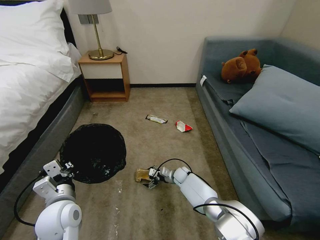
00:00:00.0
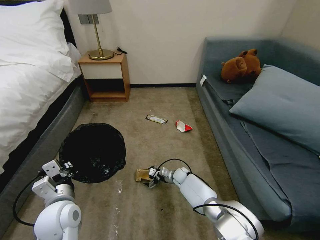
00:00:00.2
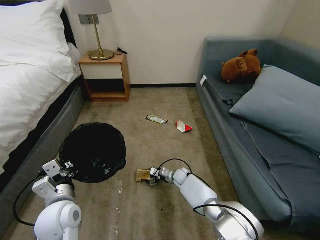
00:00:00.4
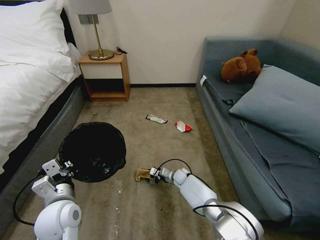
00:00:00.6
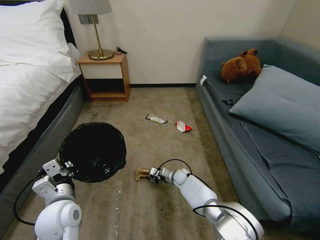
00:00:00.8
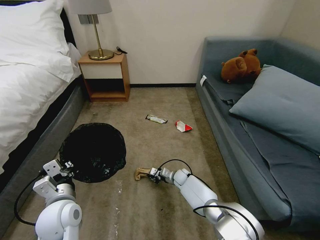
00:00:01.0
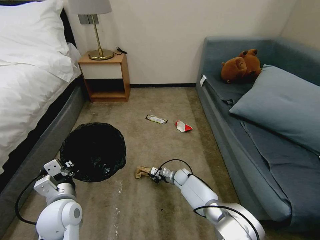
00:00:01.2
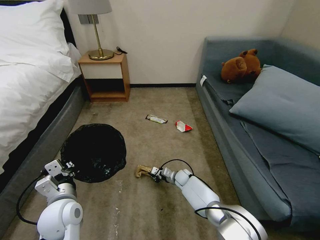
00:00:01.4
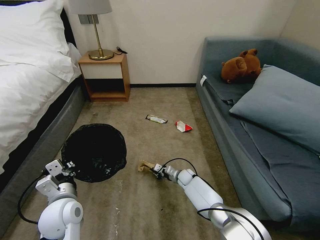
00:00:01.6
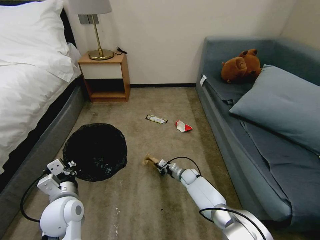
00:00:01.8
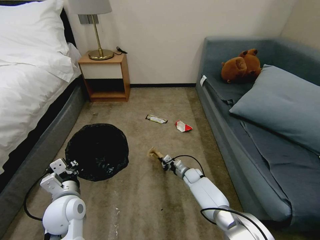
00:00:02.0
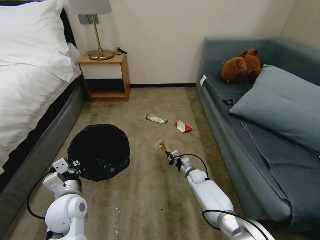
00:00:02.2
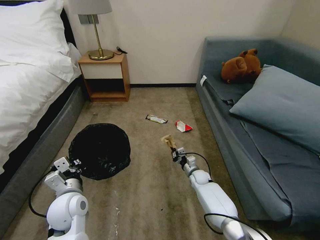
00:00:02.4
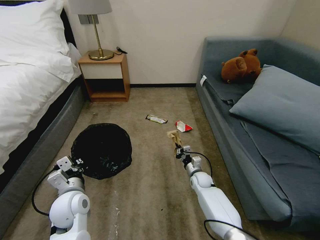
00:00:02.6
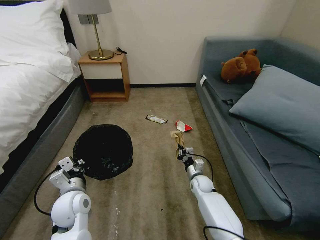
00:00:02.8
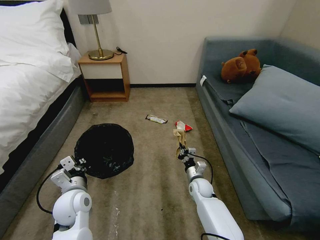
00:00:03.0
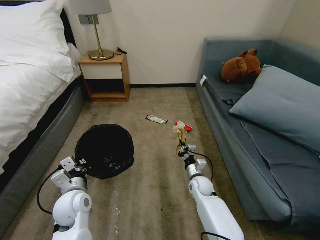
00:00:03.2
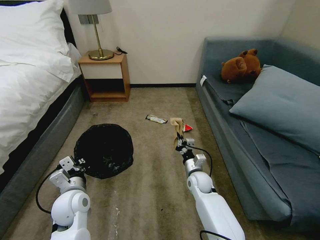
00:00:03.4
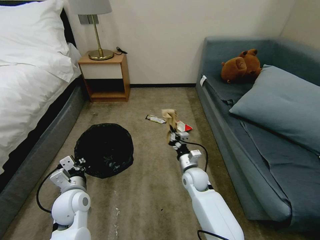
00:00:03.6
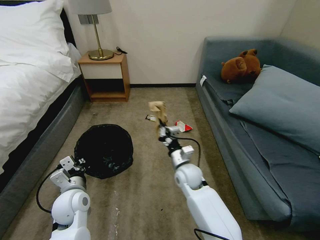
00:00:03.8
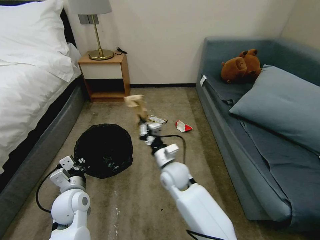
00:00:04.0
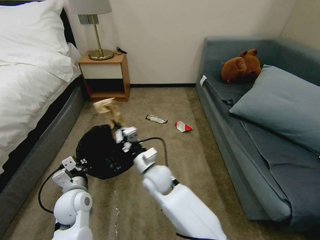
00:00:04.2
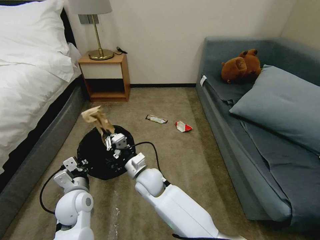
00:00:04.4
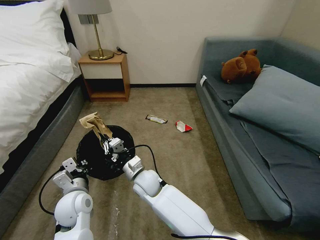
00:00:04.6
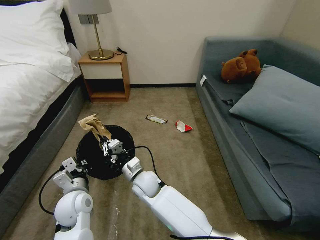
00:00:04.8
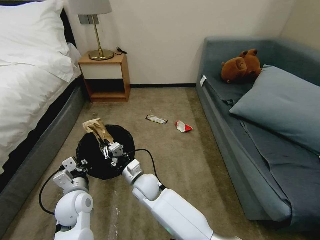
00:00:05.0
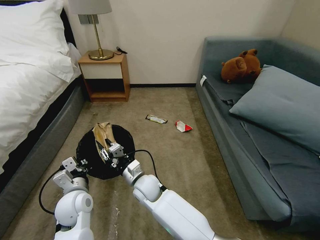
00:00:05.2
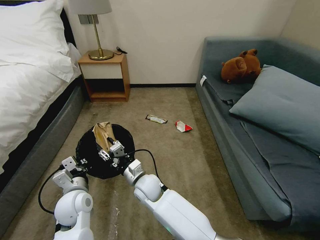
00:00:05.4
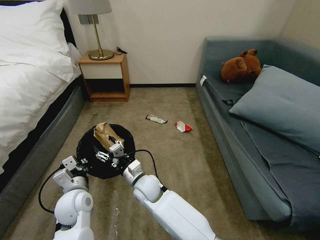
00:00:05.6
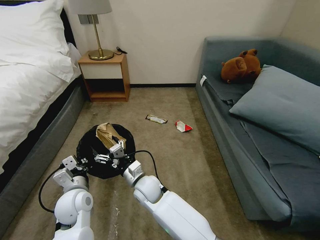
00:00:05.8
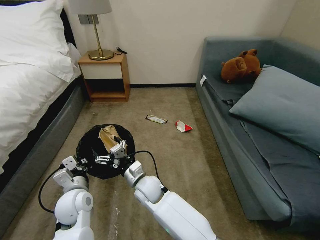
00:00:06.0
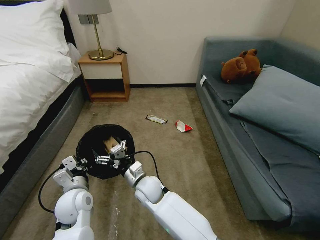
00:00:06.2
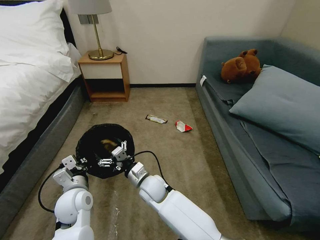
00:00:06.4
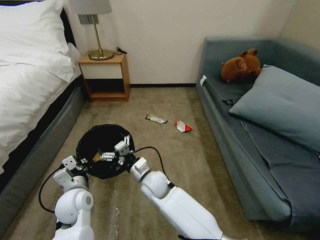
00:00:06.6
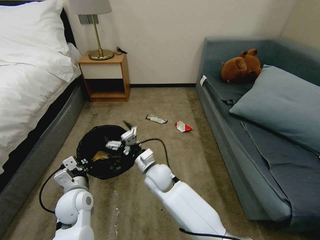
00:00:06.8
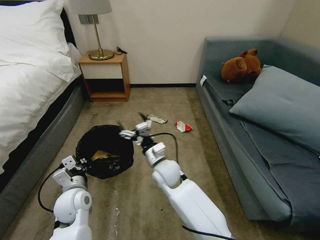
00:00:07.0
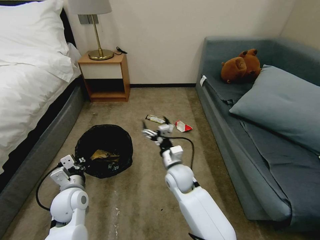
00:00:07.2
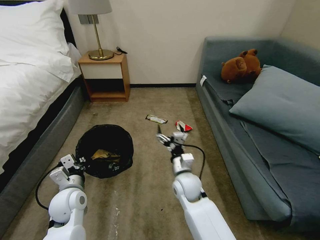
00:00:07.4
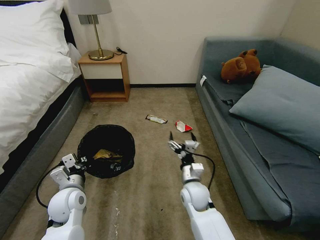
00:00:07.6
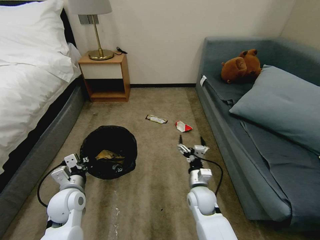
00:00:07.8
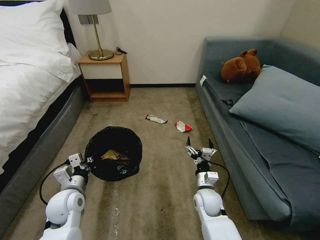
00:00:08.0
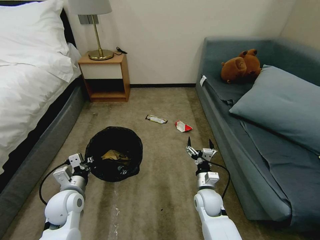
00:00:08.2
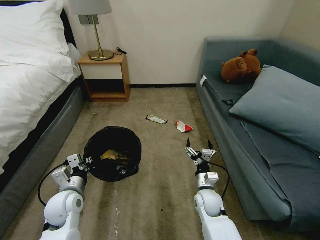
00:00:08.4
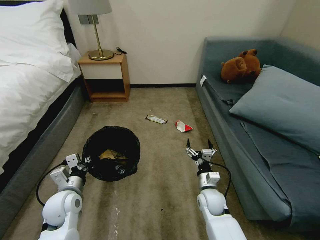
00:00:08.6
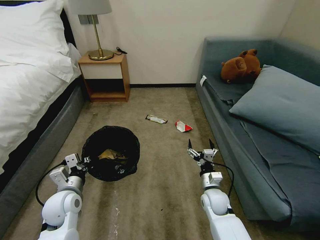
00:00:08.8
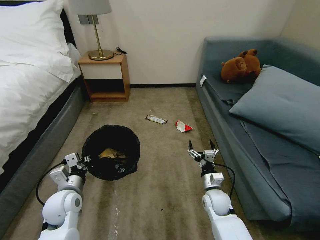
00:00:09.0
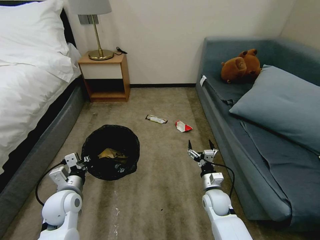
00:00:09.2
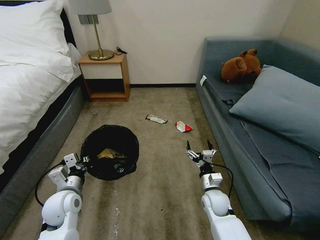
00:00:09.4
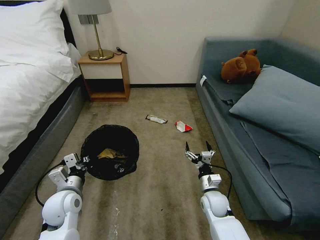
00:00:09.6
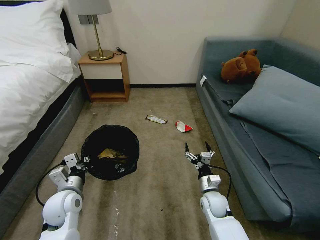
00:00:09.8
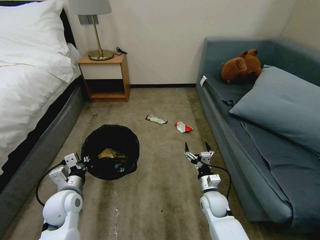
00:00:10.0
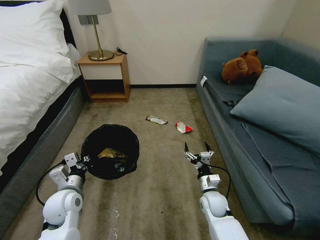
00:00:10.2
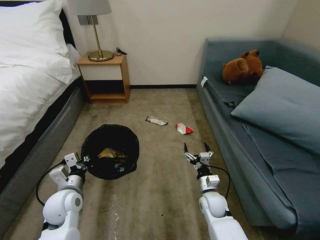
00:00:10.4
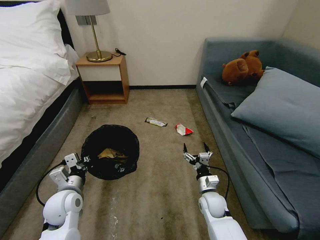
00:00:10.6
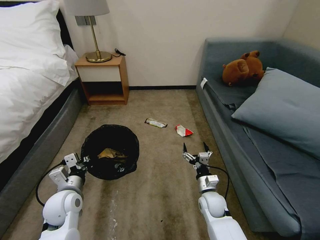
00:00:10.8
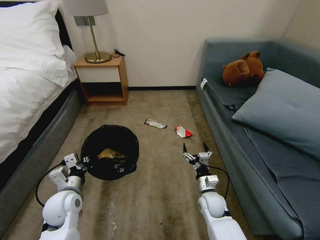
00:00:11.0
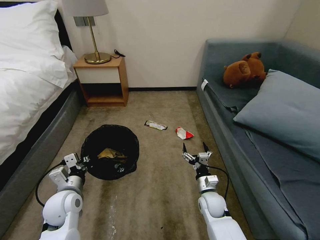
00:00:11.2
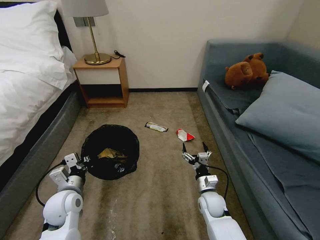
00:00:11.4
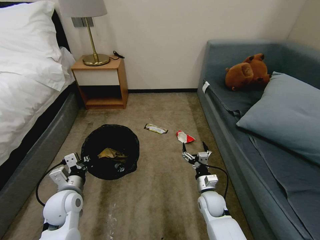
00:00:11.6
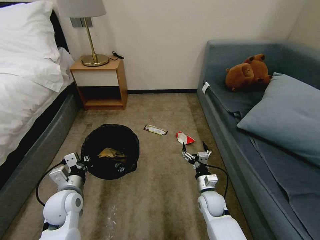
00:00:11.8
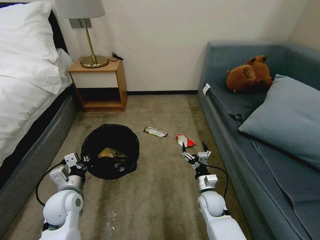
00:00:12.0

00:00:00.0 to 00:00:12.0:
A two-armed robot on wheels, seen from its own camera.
Task of the whole recording: Pick up the trash bin, then pick up the garbage on the floor and place it into the trash bin.
00:00:00.0 to 00:00:01.6: The right gripper closes up.
00:00:01.6 to 00:00:03.0: The right gripper shifts approximately 10 cm backward and upward.
00:00:03.0 to 00:00:04.4: The right gripper goes roughly 25 cm to the left and upward.
00:00:04.4 to 00:00:06.0: The right gripper opens.
00:00:06.0 to 00:00:07.6: The right gripper heads to the right, covering some 15 cm.
00:00:07.6 to 00:00:09.0: The right gripper is displaced to the right and downward by approximately 10 cm.
00:00:09.0 to 00:00:10.4: The grippers make only small movements.

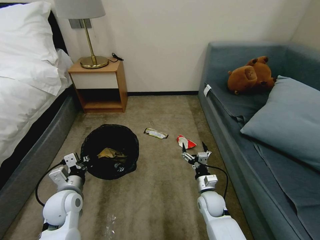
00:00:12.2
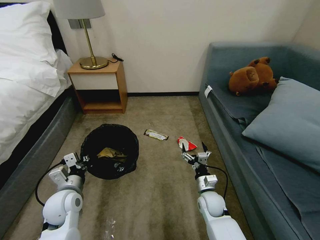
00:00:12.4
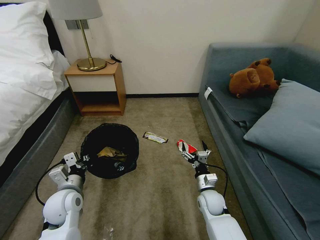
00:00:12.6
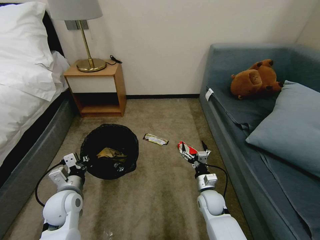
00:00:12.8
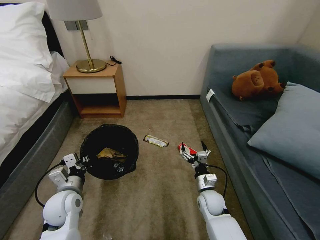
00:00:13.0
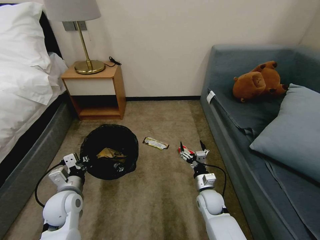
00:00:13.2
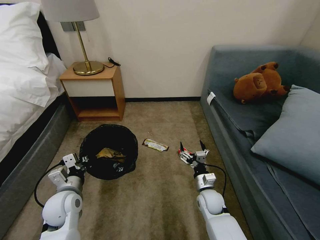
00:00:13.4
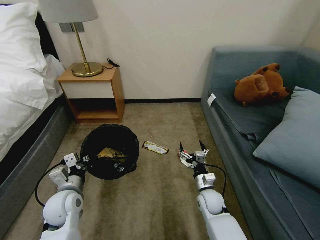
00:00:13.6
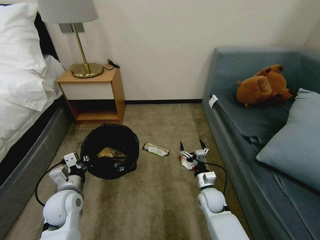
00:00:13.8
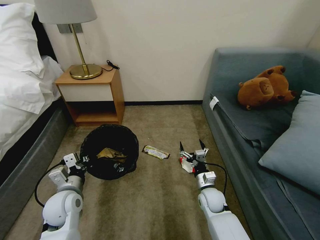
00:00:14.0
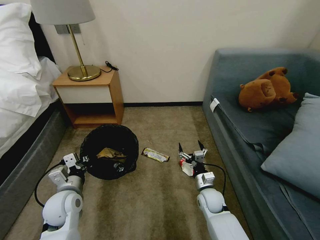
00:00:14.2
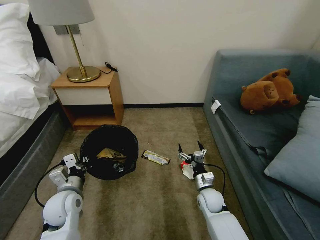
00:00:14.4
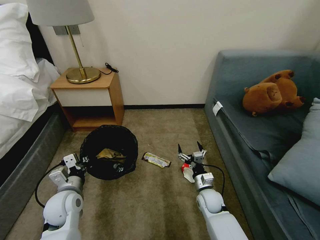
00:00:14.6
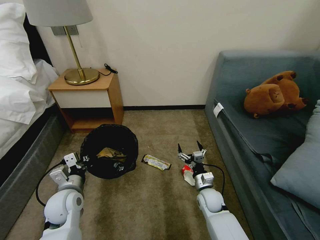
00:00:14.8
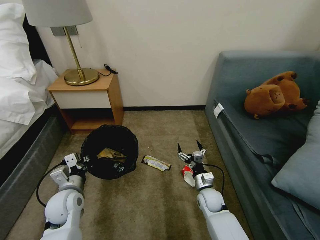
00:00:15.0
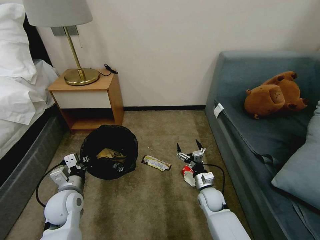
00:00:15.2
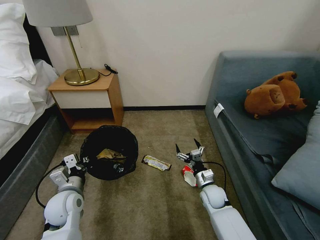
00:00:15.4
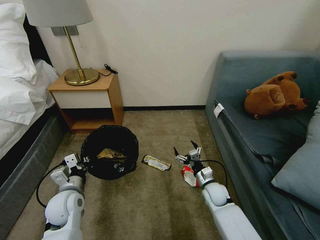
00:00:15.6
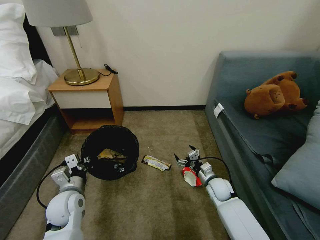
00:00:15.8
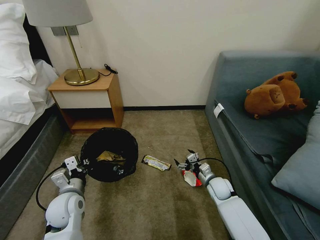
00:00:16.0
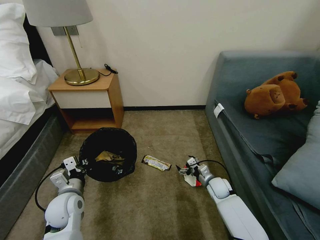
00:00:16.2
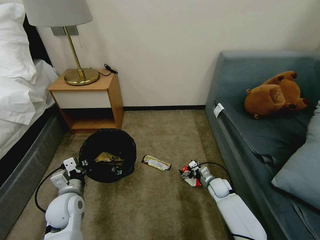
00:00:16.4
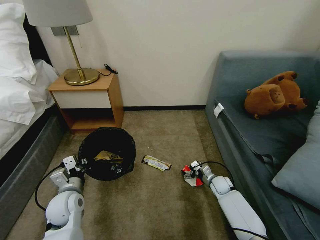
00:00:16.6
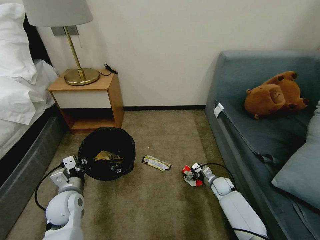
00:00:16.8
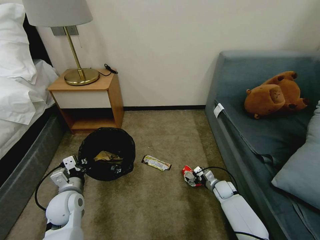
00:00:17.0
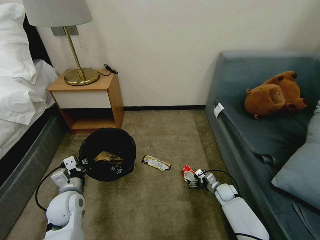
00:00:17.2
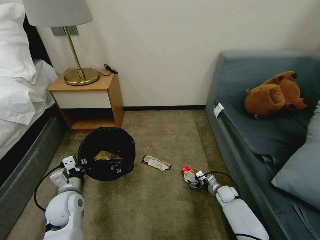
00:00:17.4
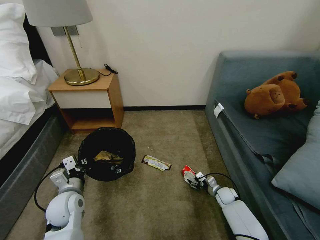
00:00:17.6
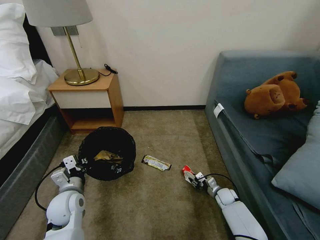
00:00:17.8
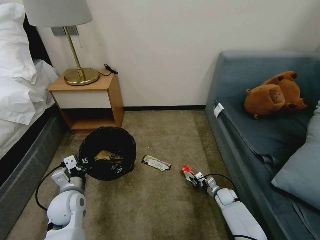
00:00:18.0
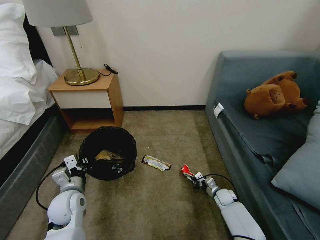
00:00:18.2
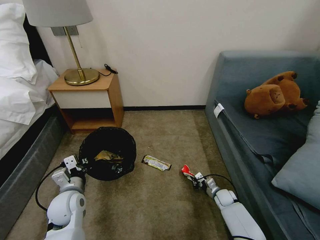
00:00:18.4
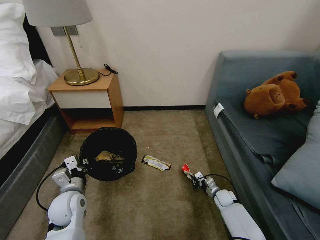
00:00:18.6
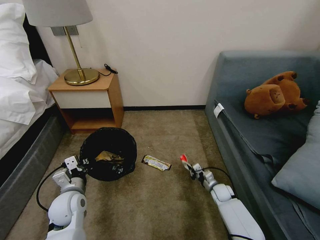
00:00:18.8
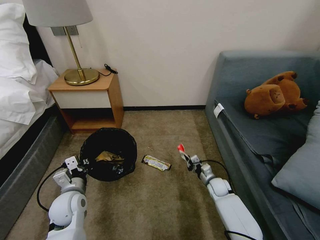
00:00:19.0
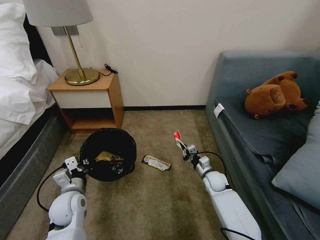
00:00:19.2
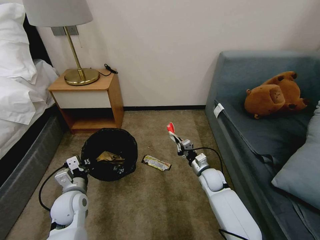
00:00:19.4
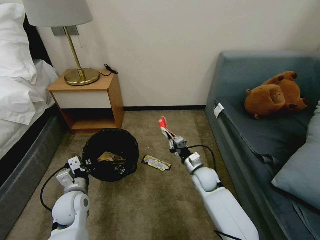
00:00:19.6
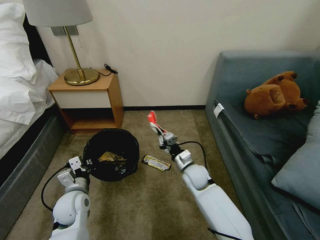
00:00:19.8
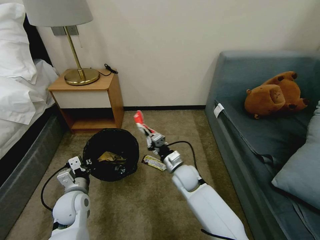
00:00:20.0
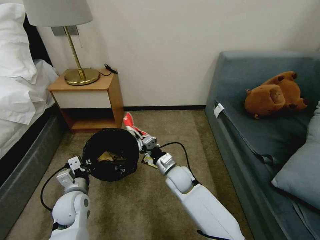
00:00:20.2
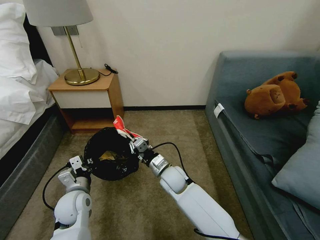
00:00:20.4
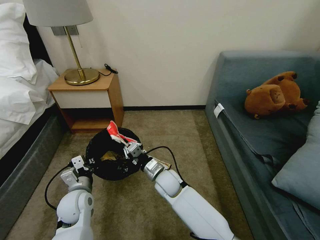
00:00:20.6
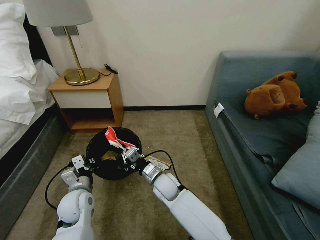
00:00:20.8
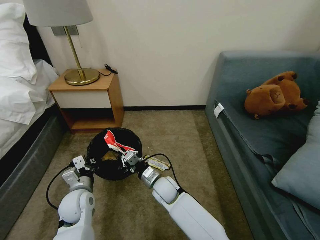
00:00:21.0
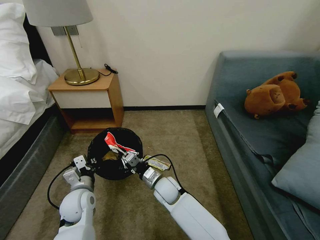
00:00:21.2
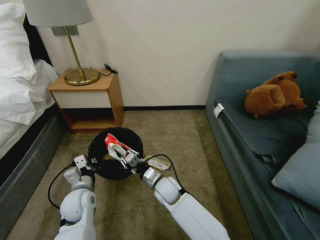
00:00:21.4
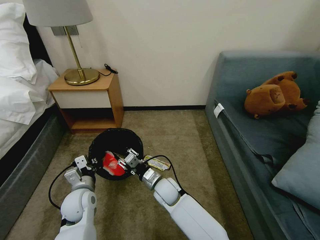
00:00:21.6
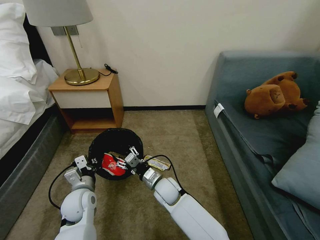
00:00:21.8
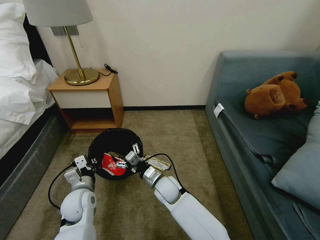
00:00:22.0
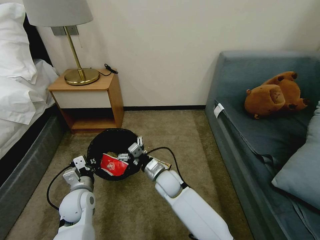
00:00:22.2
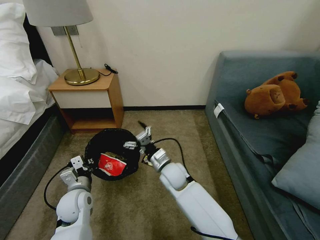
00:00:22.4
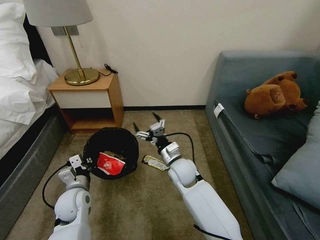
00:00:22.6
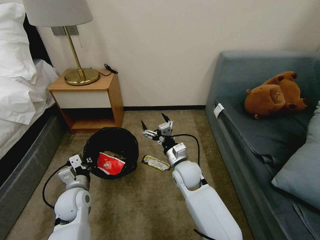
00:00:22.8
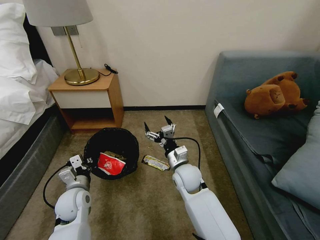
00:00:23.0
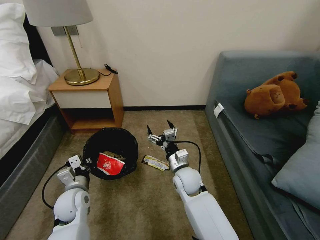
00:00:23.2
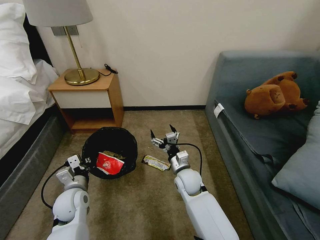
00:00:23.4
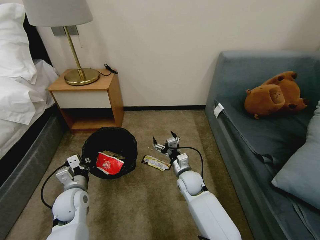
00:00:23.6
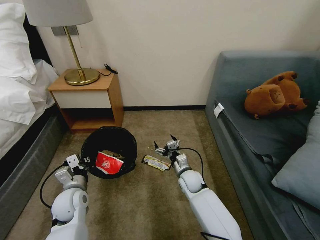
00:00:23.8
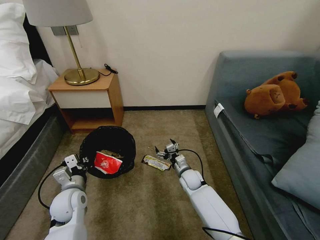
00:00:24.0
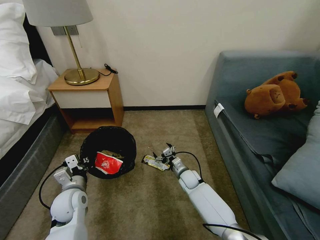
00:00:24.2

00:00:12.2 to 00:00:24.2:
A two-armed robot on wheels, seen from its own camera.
Task of the whole recording: Pick up the trash bin, then pick up the garbage on the floor and place it into the trash bin.
00:00:15.2 to 00:00:16.6: The right gripper is displaced to the right and forward by about 10 cm.
00:00:16.6 to 00:00:18.2: The right gripper travels downward by roughly 5 cm, and closes its fingers.
00:00:18.2 to 00:00:19.8: The right gripper heads upward and to the left, covering about 25 cm.
00:00:19.8 to 00:00:21.2: The right gripper travels to the left by roughly 10 cm.
00:00:21.2 to 00:00:22.6: The right gripper is displaced upward and to the right by some 10 cm, and opens up.
00:00:22.6 to 00:00:24.2: The right gripper heads downward, covering about 15 cm.
